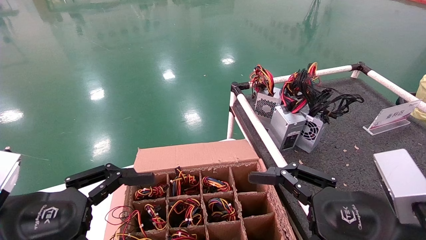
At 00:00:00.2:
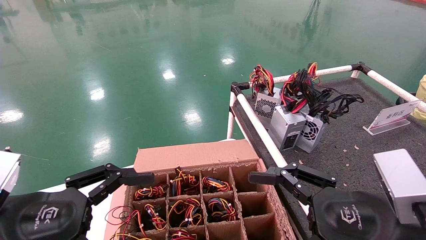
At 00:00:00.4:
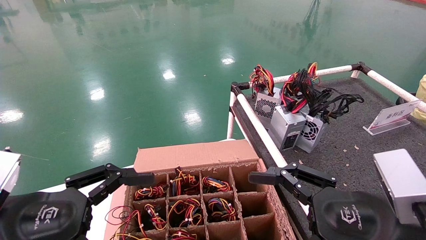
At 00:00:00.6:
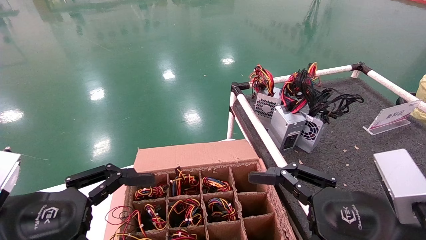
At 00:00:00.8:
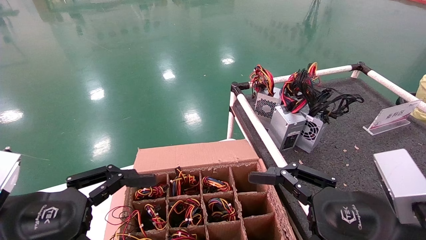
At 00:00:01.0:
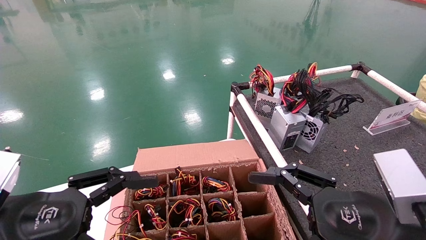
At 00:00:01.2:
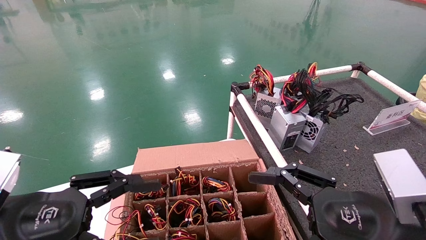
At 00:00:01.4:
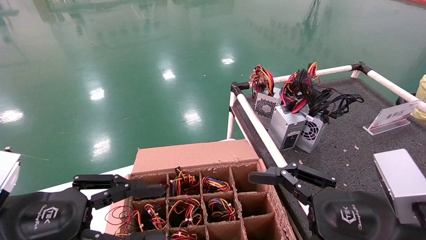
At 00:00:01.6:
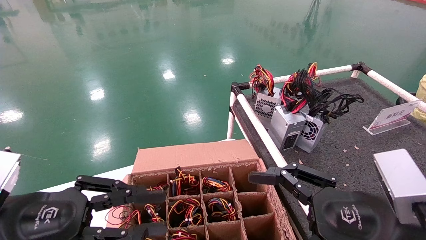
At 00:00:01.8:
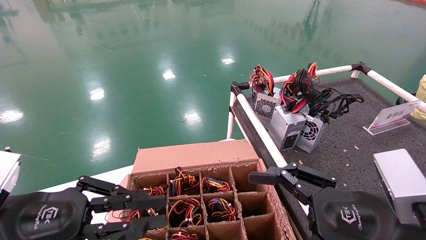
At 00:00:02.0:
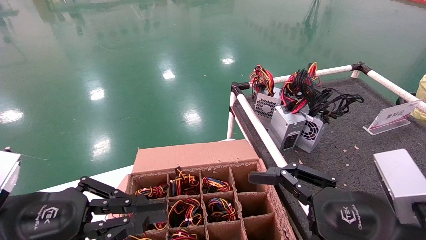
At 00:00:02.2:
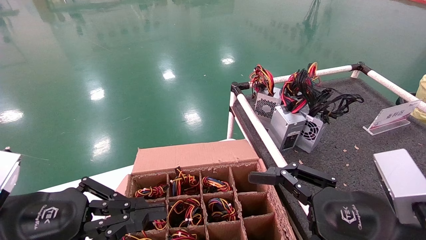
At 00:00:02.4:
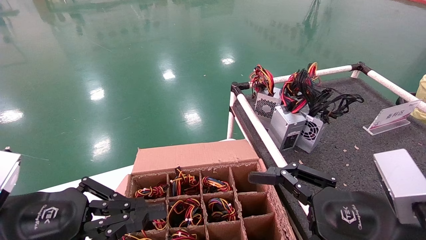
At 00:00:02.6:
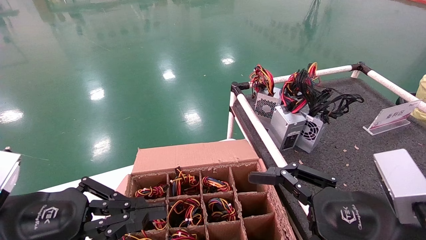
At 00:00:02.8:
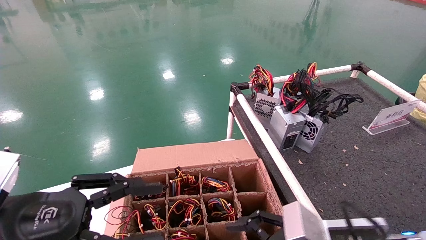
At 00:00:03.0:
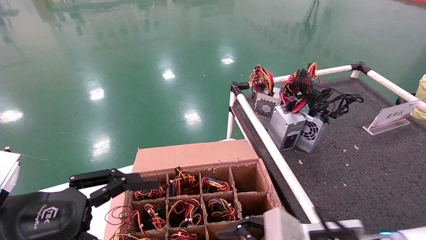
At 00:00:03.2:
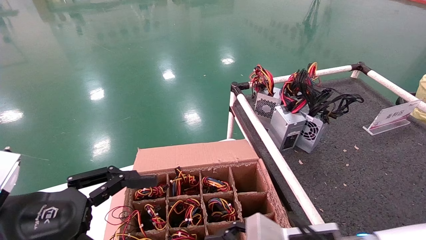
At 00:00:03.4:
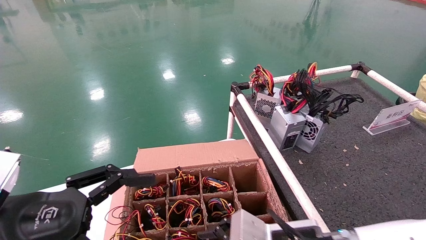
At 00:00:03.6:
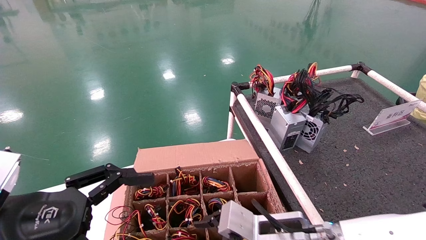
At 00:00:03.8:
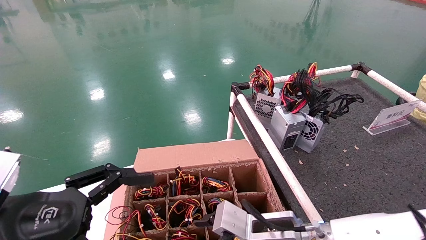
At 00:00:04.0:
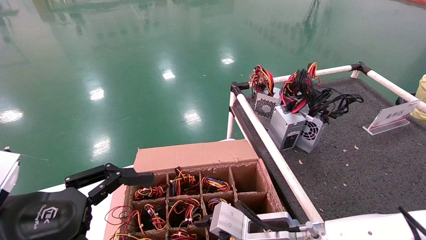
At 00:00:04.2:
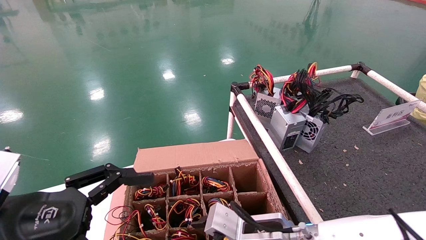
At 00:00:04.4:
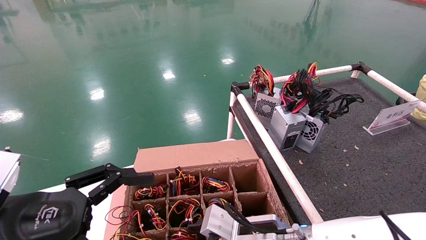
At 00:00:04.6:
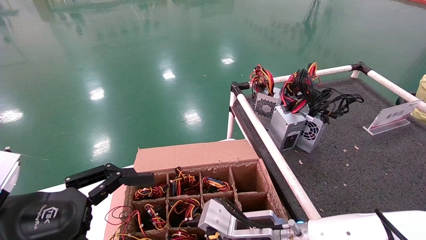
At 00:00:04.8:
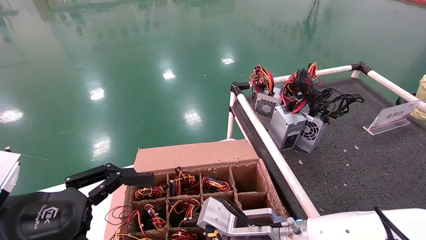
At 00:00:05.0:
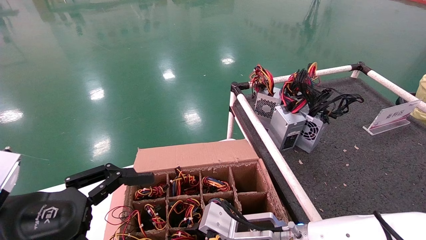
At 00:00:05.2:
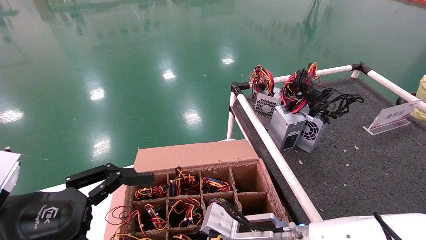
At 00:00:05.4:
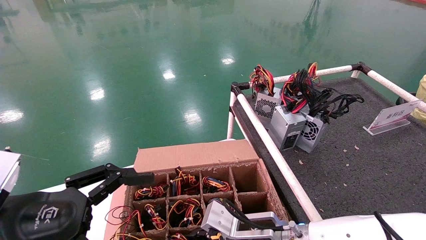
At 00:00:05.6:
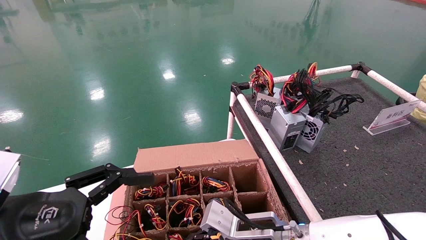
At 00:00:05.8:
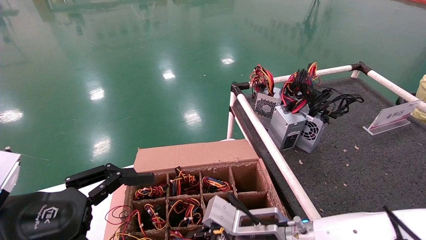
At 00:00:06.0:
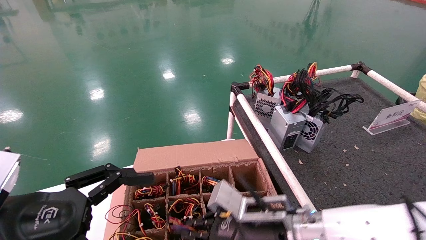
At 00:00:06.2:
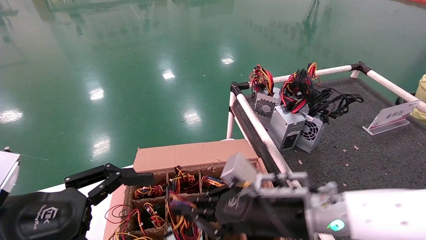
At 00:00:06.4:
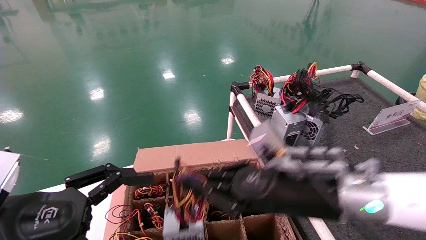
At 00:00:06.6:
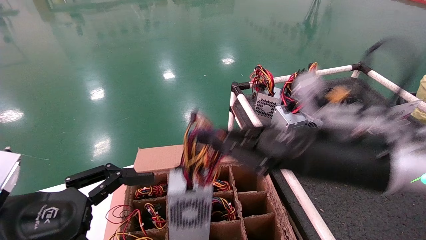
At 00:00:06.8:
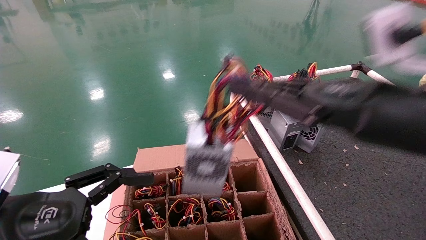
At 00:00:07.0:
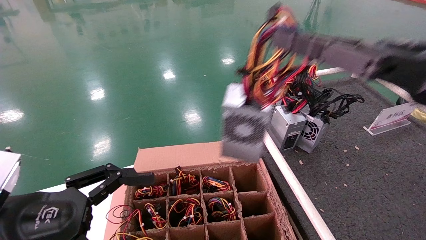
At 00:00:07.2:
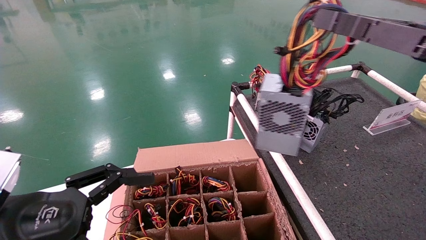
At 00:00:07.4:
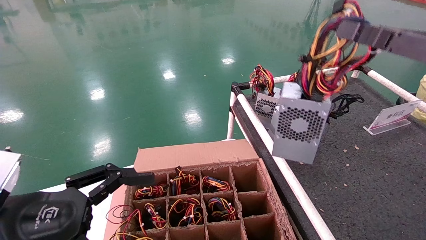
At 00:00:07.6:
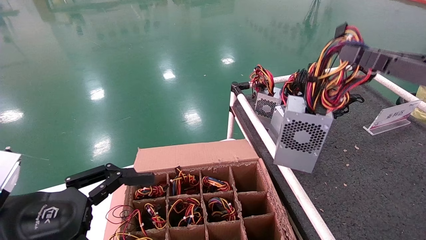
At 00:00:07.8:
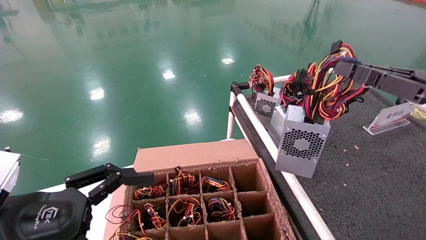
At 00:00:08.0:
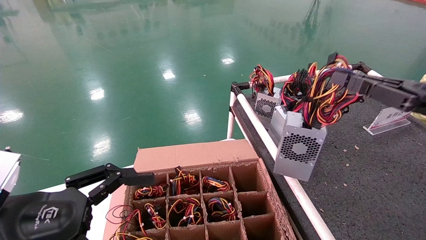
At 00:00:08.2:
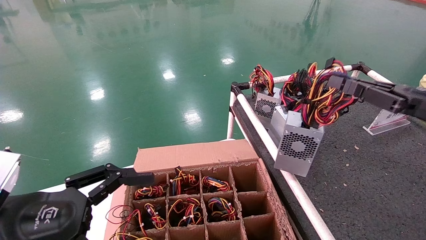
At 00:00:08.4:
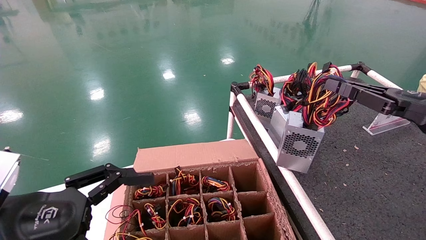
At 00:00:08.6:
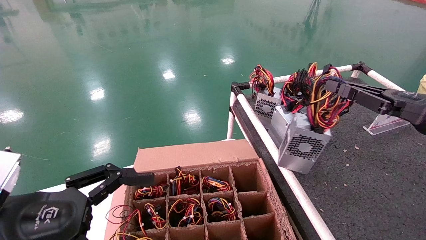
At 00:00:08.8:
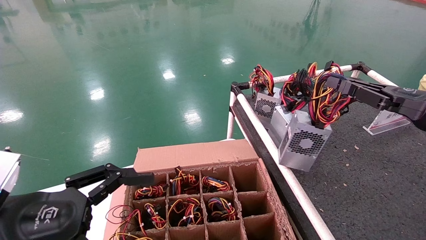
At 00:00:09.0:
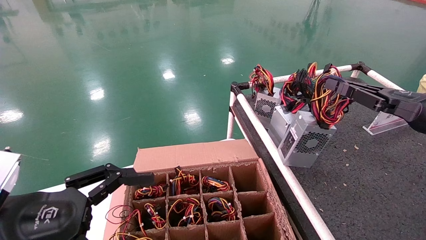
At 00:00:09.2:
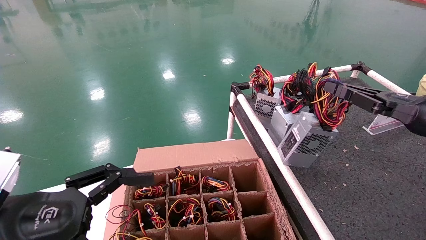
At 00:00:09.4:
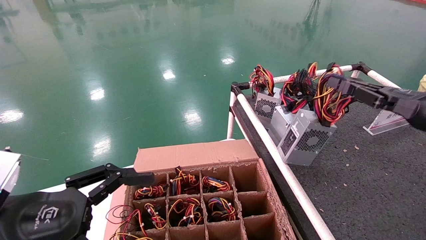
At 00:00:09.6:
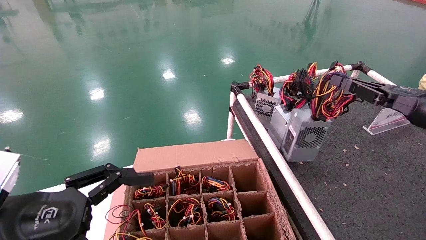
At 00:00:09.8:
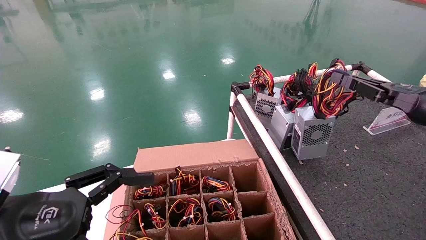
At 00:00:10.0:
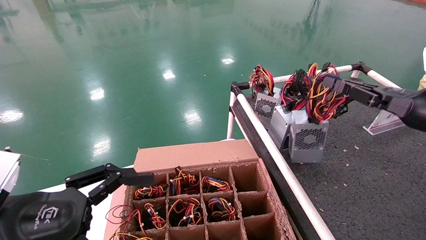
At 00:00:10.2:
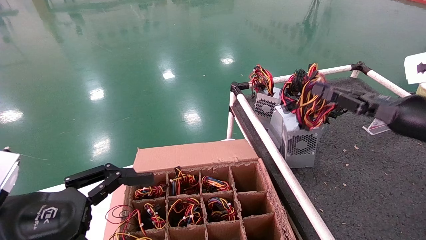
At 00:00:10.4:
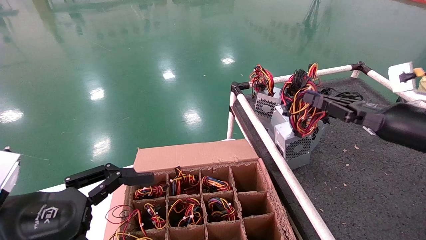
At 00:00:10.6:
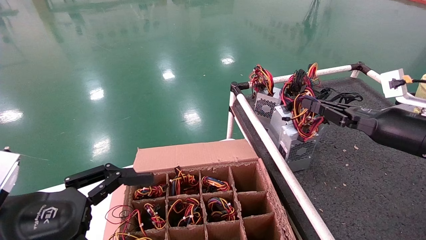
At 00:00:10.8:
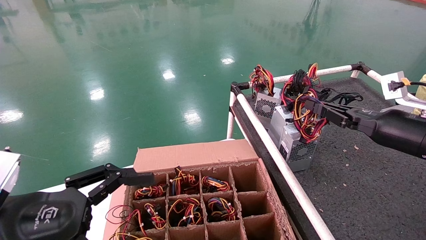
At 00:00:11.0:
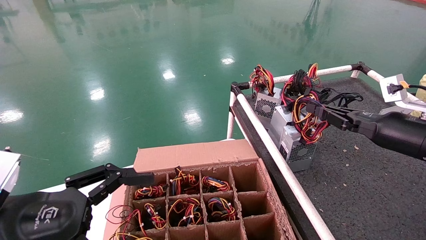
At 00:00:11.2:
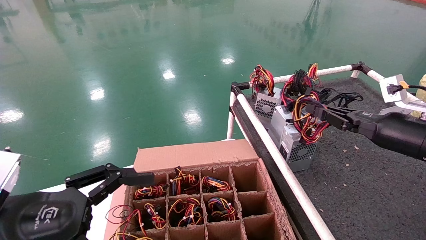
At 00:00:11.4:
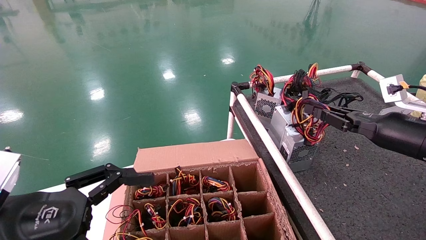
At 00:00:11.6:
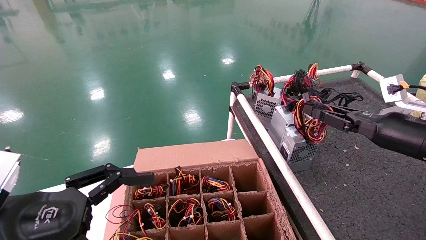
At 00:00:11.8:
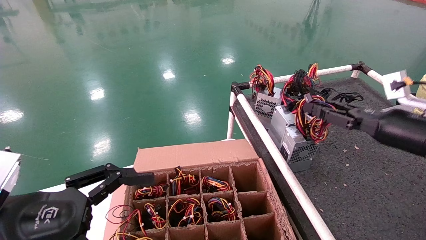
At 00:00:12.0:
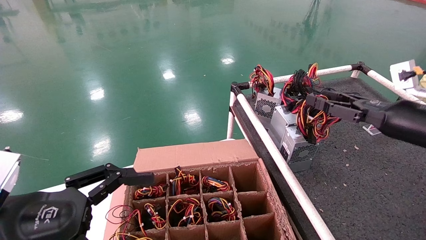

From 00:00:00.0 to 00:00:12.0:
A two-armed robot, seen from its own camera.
Step, from 00:00:01.2 to 00:00:06.4: Grab and lift the power supply from the large box.
From 00:00:00.0 to 00:00:01.6: The left gripper closes its fingers.
From 00:00:01.6 to 00:00:03.0: The left gripper closes its fingers.
From 00:00:03.0 to 00:00:04.4: The left gripper opens up. Meanwhile the right gripper is displaced to the left, forward and downward by roughly 15 cm.
From 00:00:04.4 to 00:00:06.0: The right gripper closes its fingers.
From 00:00:06.0 to 00:00:07.6: The right gripper heads upward, to the right and backward, covering some 30 cm, and closes.
From 00:00:07.6 to 00:00:09.0: The right gripper heads to the right and forward, covering about 15 cm.
From 00:00:09.0 to 00:00:10.4: The grippers make only small movements.
From 00:00:10.4 to 00:00:12.0: The right gripper shifts by about 5 cm.

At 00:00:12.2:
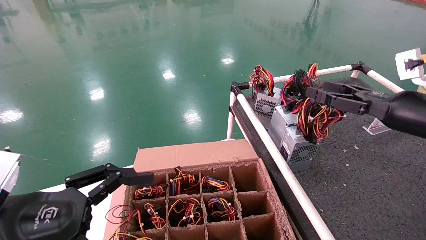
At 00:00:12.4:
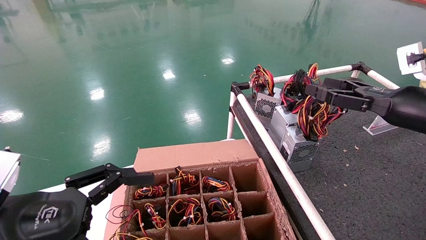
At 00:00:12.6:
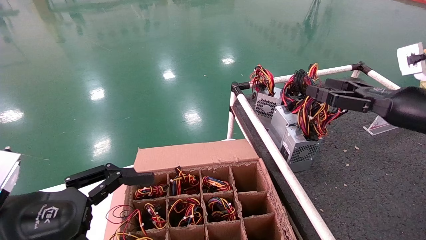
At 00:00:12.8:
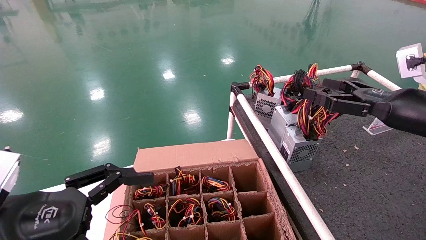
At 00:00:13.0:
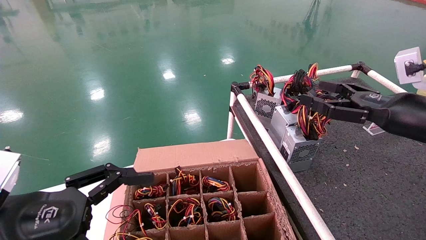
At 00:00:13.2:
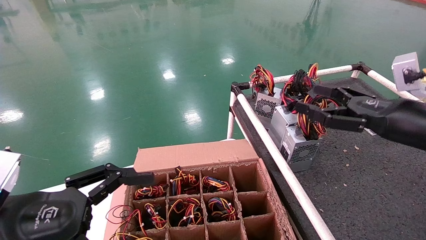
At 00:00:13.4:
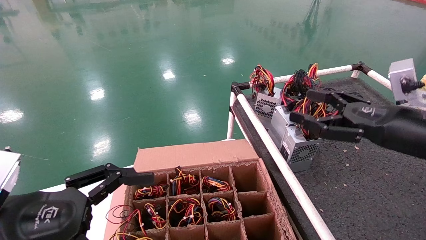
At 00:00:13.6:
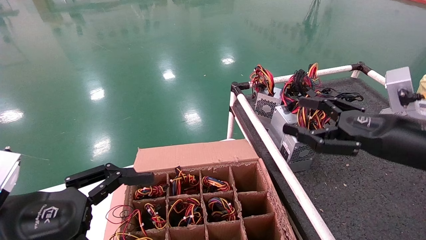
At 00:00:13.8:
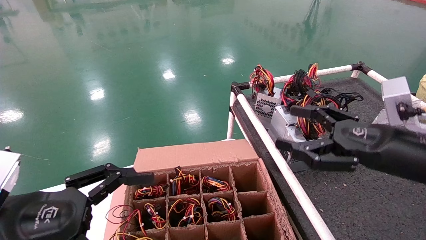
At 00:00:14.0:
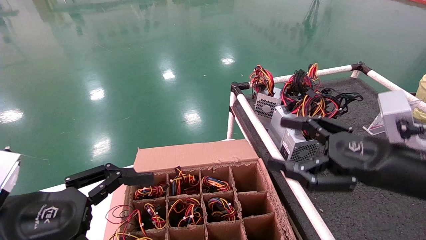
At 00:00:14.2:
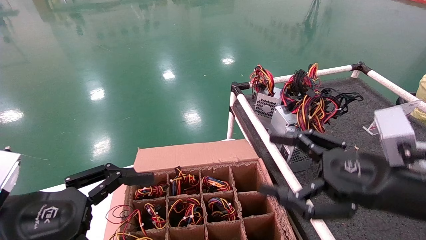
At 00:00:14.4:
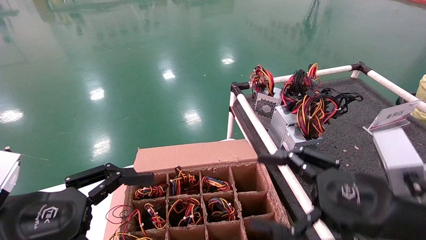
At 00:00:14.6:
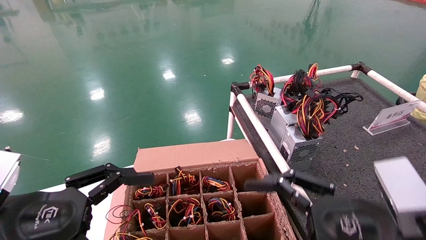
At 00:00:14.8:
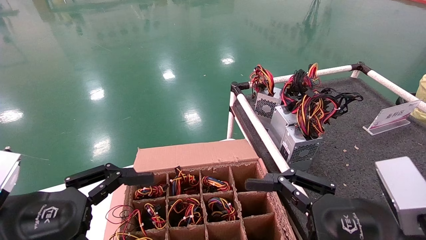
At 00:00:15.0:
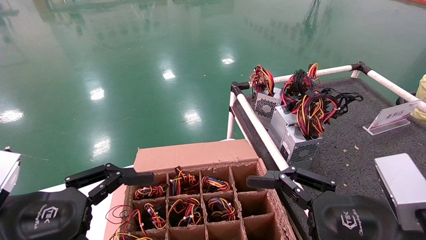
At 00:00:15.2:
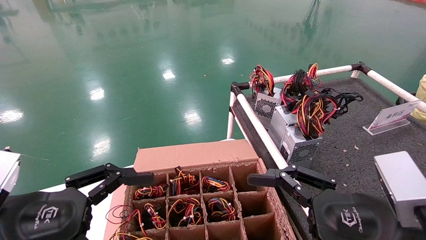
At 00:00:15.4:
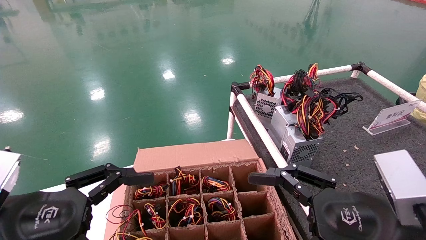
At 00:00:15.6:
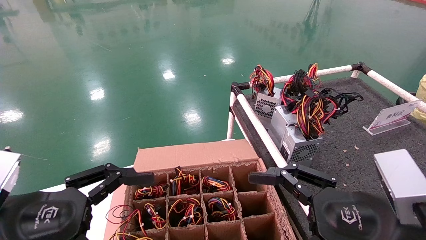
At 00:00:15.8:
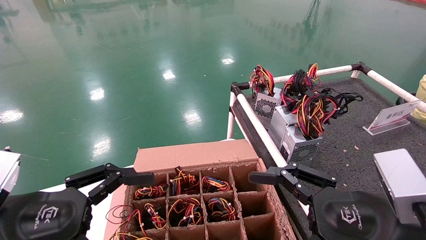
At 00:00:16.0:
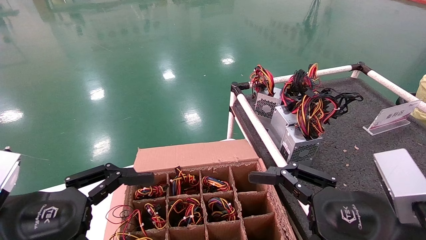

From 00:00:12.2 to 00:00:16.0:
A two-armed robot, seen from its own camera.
From 00:00:12.2 to 00:00:13.4: The right gripper shifts by approximately 5 cm, and opens up.
From 00:00:13.4 to 00:00:14.8: The right gripper moves to the left, backward and downward, about 15 cm.
From 00:00:14.8 to 00:00:16.0: The right gripper moves roughly 5 cm.
